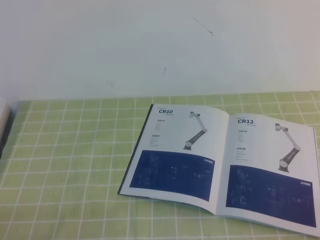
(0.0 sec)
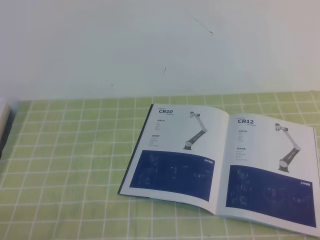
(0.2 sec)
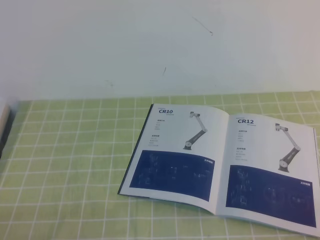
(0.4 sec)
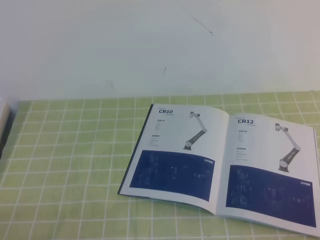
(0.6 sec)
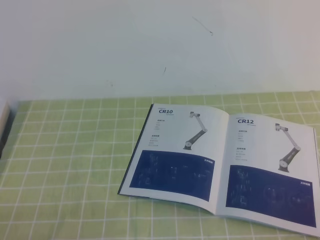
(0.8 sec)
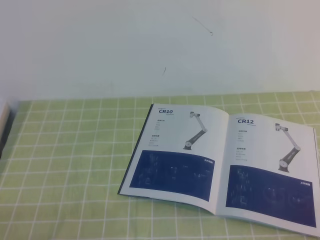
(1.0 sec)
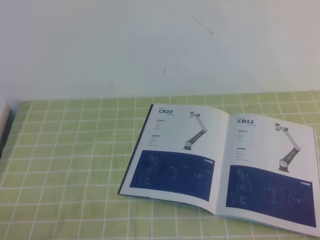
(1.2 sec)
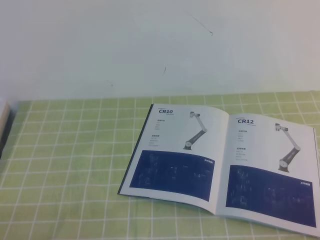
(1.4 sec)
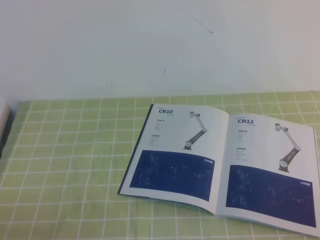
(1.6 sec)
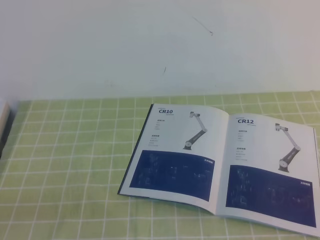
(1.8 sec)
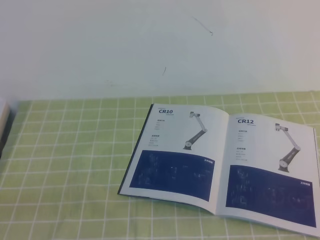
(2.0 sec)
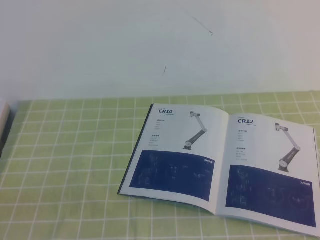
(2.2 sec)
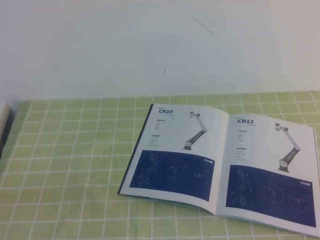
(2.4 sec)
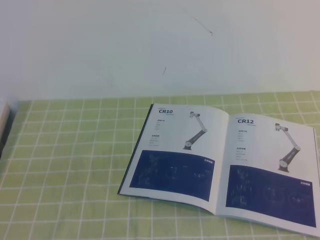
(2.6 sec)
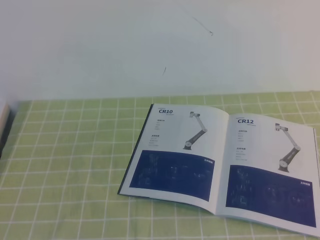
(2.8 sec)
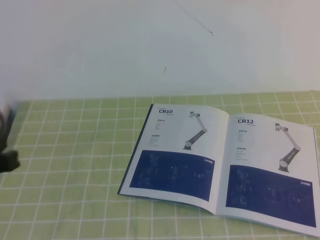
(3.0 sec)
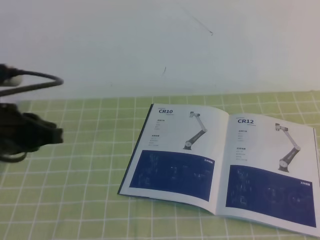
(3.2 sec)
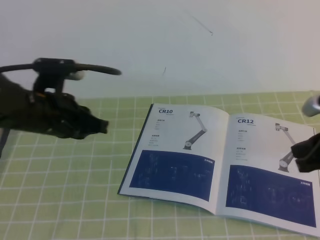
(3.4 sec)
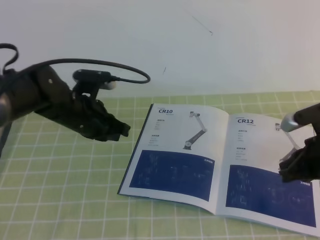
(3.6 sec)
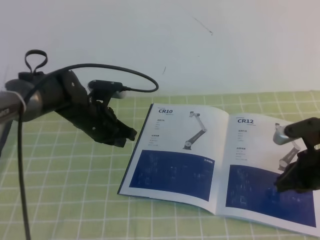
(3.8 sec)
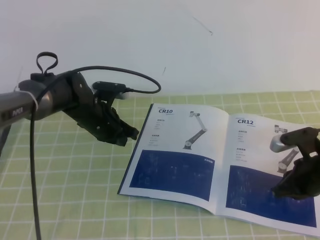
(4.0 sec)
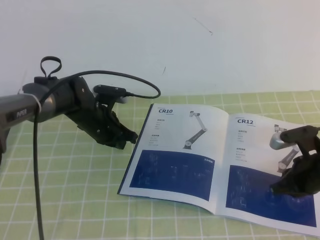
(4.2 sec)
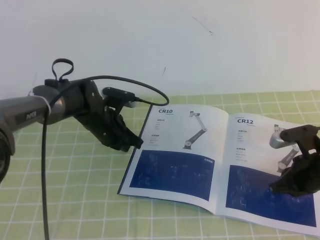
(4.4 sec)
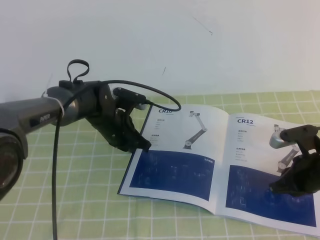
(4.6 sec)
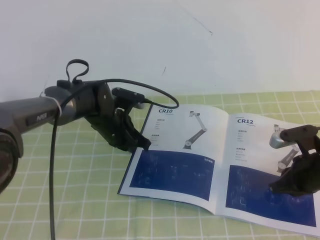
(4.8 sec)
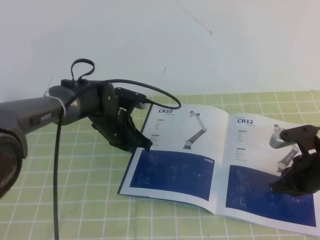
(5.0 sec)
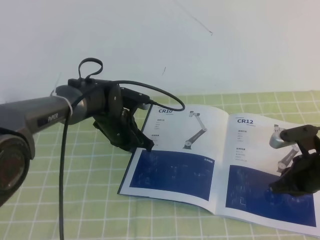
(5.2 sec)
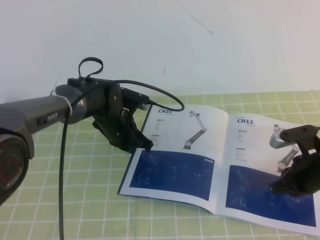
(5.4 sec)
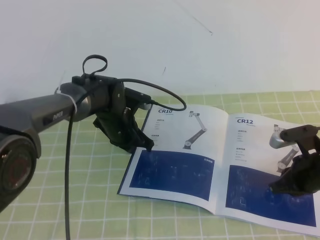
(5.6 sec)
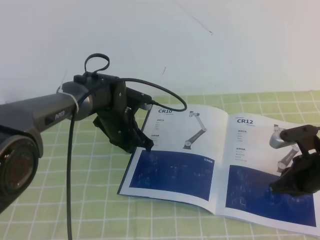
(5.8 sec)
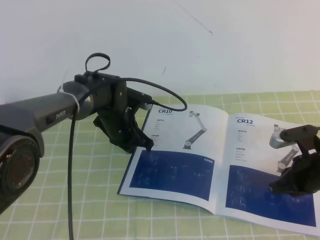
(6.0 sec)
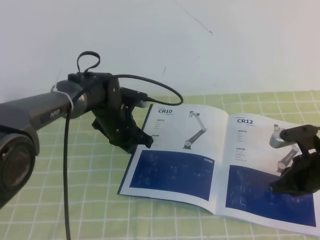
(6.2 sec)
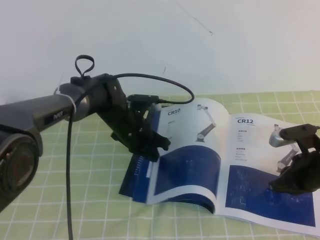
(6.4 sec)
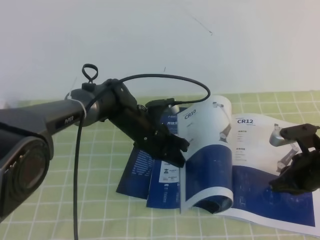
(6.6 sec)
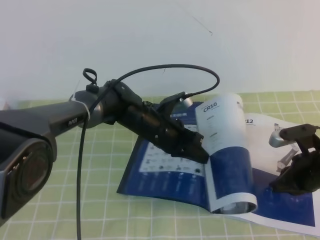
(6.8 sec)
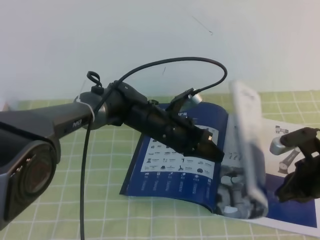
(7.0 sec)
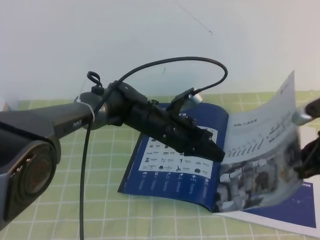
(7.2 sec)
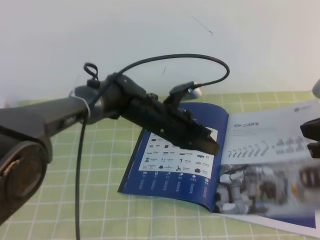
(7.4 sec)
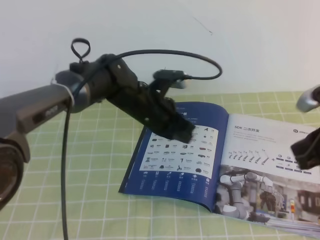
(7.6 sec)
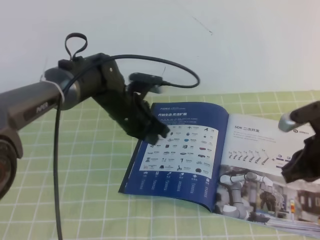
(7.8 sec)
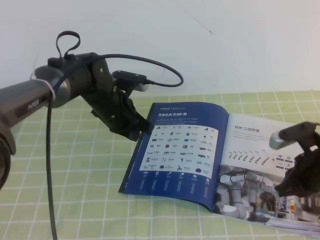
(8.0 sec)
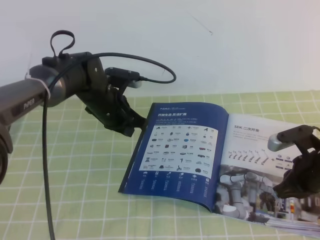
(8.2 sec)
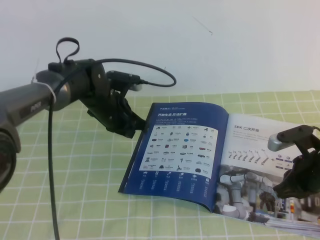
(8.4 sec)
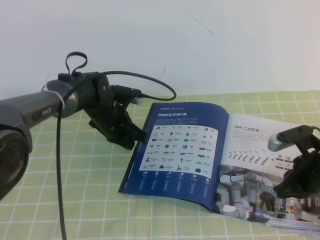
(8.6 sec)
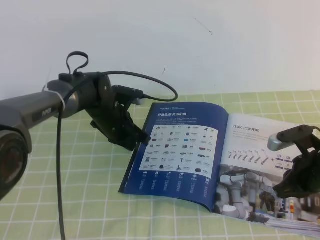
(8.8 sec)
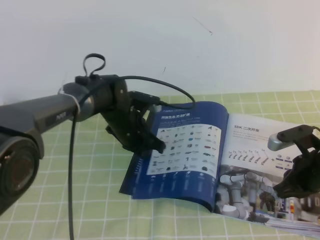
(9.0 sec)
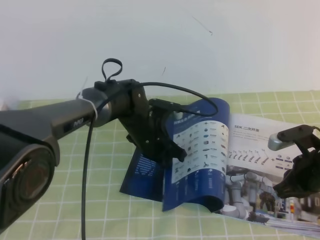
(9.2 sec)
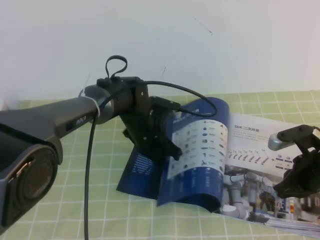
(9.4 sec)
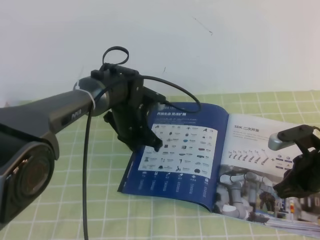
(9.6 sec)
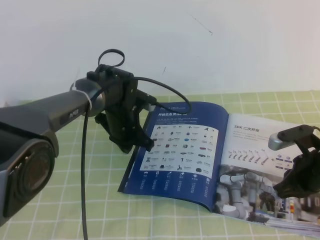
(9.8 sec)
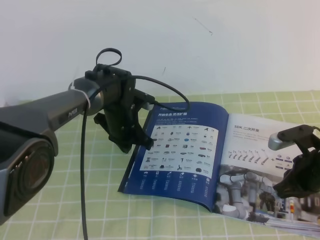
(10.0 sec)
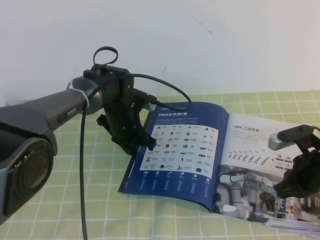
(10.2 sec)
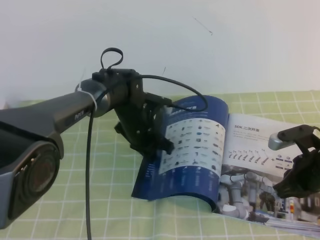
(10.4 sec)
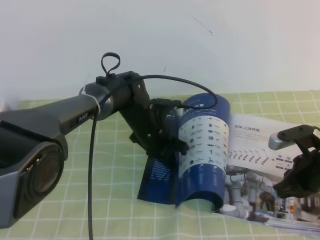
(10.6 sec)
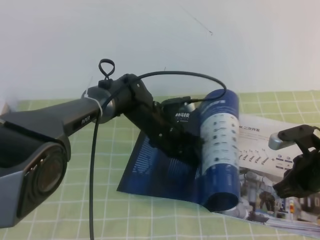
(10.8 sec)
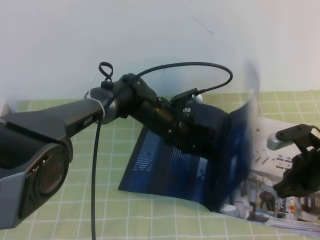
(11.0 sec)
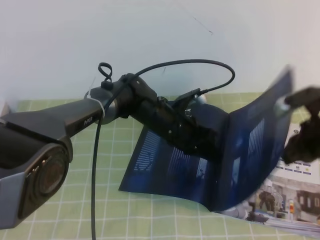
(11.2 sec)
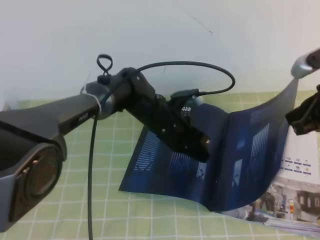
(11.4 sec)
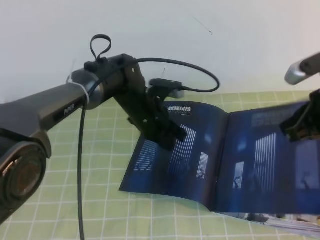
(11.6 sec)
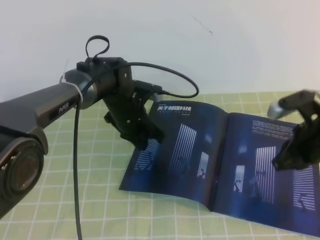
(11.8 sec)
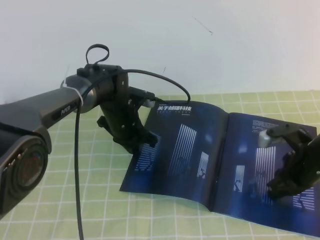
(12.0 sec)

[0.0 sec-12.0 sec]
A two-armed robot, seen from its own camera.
Task of the whole recording: on the green tablecloth, hold the book with one hand and close it with the other.
1.6 sec to 3.0 sec: The left gripper shifts some 15 cm upward and forward.
3.0 sec to 4.4 sec: The right gripper moves downward and forward, approximately 25 cm; the left gripper moves forward, downward and to the right, some 35 cm.
4.4 sec to 6.0 sec: The grippers move only a little.
6.0 sec to 7.6 sec: The left gripper moves to the right, roughly 5 cm. The right gripper is displaced upward by roughly 15 cm.
7.6 sec to 9.0 sec: The left gripper shifts by approximately 5 cm; the right gripper goes some 10 cm downward.
9.0 sec to 10.4 sec: The grippers make only small movements.
10.4 sec to 12.0 sec: The left gripper goes to the right and returns, approximately 5 cm each way. Meanwhile the right gripper moves some 15 cm upward and comes back.

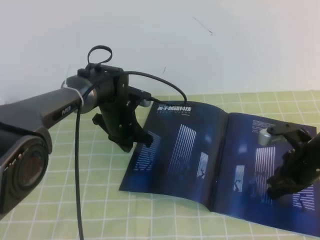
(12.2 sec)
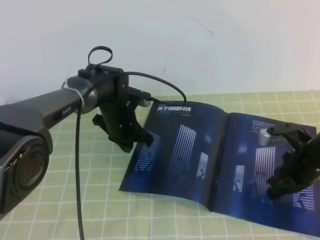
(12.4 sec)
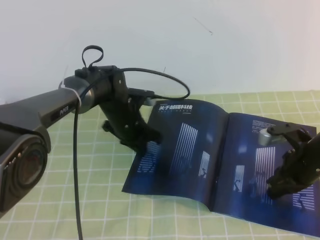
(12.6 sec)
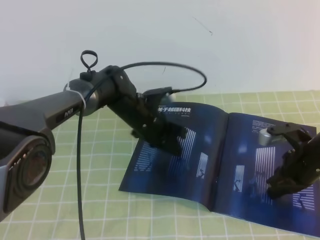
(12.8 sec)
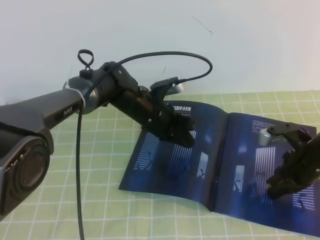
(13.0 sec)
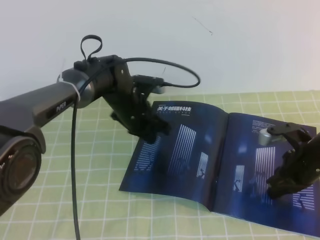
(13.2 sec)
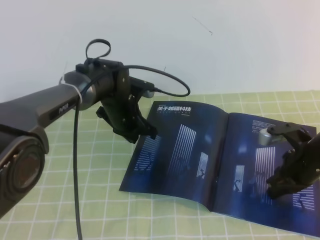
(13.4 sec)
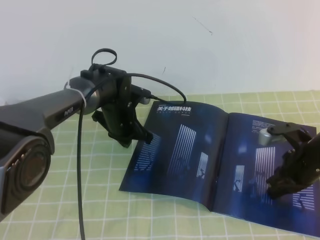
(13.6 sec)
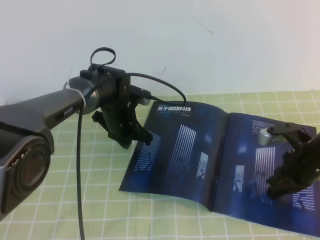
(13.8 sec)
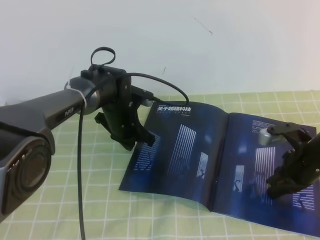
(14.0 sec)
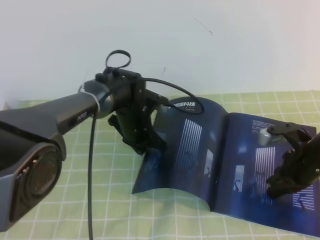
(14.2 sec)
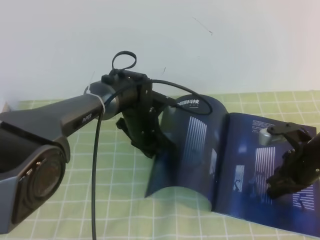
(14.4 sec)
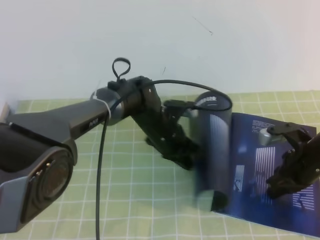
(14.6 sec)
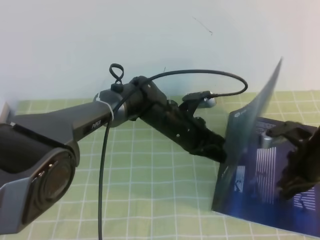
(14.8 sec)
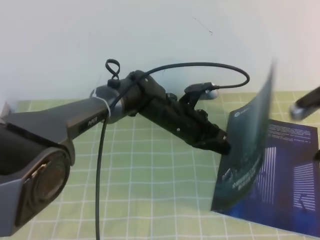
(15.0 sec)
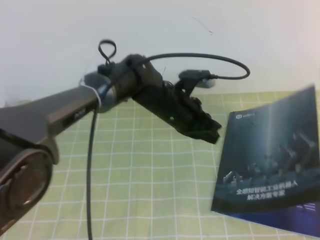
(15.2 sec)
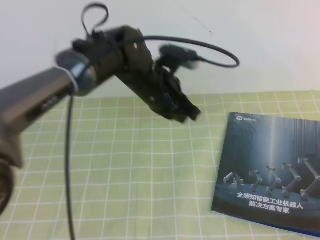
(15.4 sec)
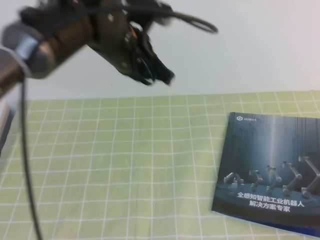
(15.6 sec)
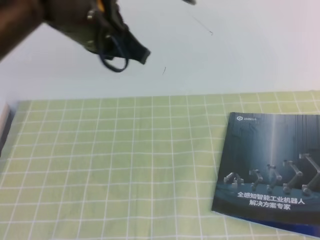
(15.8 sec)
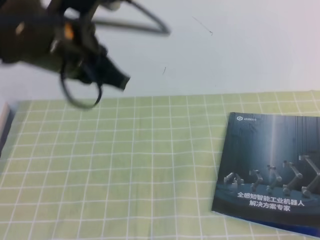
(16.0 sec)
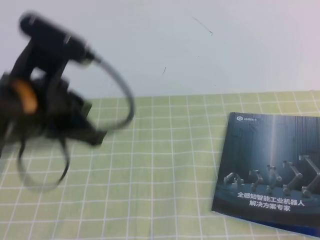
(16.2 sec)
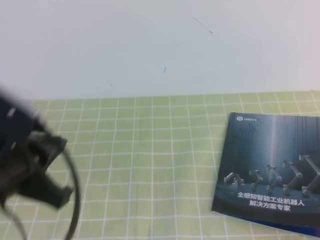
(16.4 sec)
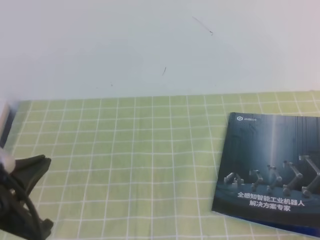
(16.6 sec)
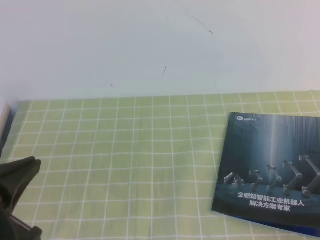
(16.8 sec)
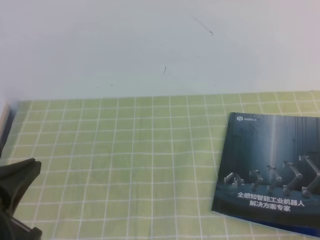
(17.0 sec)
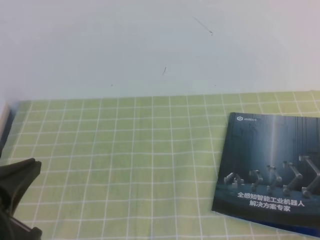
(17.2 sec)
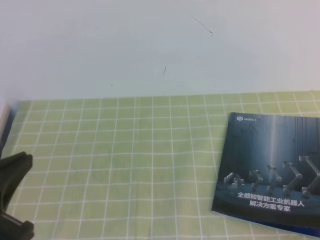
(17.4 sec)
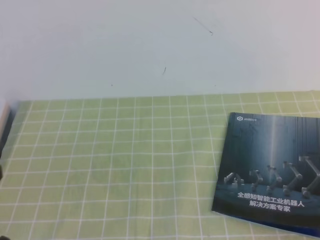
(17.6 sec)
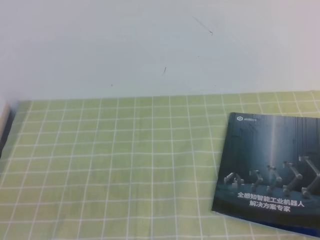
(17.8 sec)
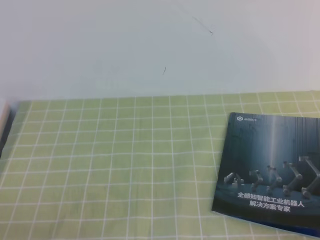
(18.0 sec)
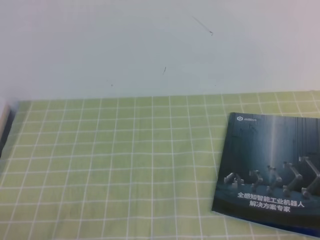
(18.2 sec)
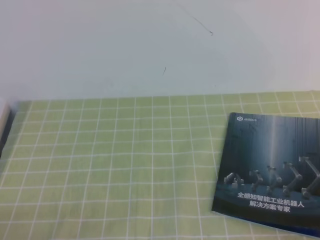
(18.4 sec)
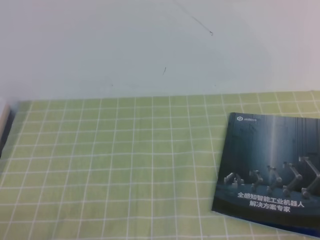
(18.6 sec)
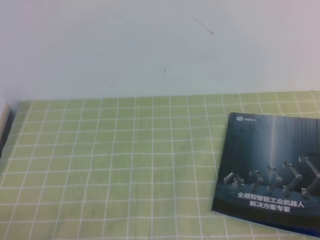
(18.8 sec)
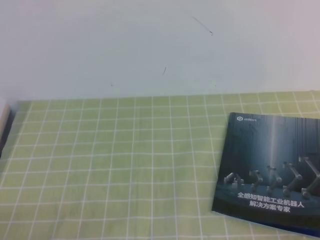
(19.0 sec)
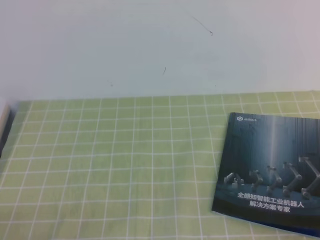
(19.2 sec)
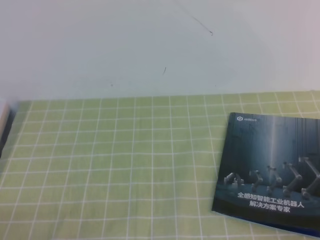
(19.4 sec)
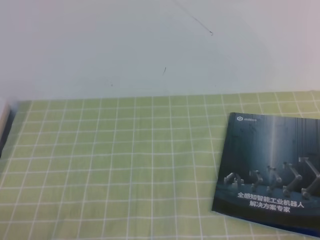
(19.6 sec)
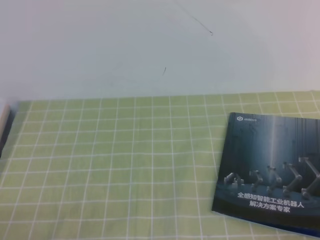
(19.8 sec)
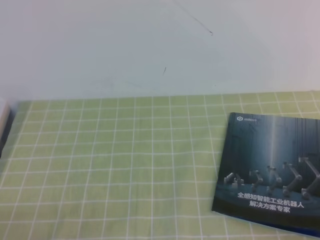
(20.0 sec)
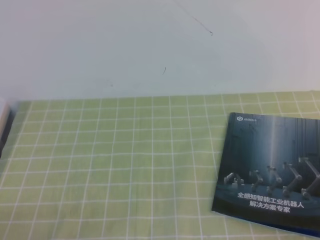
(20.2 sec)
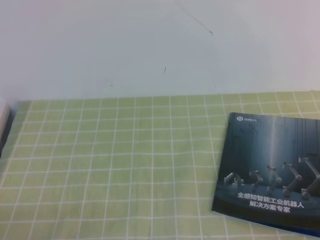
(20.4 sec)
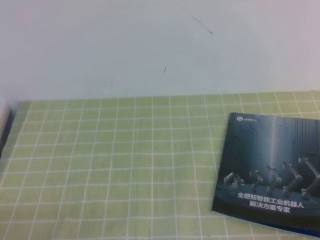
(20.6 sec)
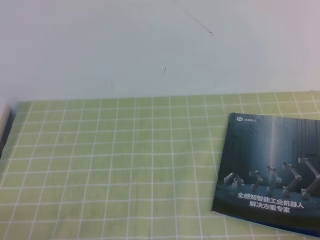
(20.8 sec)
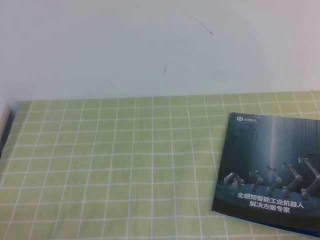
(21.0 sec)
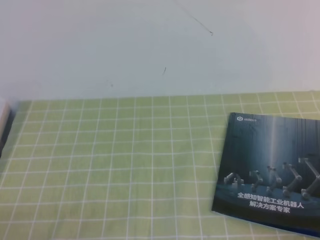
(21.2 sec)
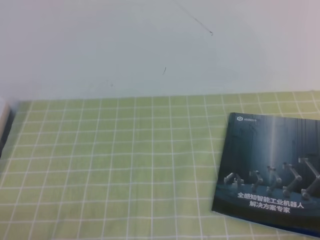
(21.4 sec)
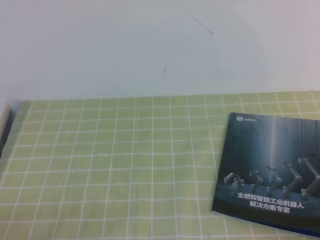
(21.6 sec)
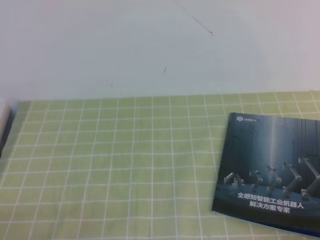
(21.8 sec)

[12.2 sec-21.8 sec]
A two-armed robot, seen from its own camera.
Task of the whole recording: on the green tablecloth, hold the book with one hand and close it with the other.
Step, 12.2 sec to 21.8 sec: Close the open book.
13.8 sec to 15.4 sec: The right gripper is displaced upward by approximately 25 cm; the left gripper goes some 15 cm upward, to the right and backward.
15.4 sec to 17.0 sec: The right gripper goes roughly 20 cm backward and downward, while the left gripper travels backward and to the left by roughly 35 cm.
17.0 sec to 18.6 sec: The left gripper is displaced downward by approximately 15 cm.
18.6 sec to 20.2 sec: Both grippers stay put.
